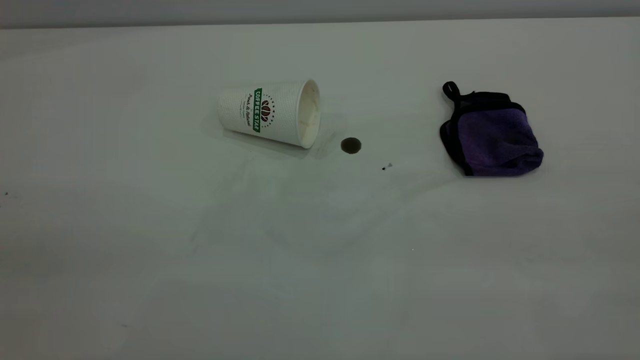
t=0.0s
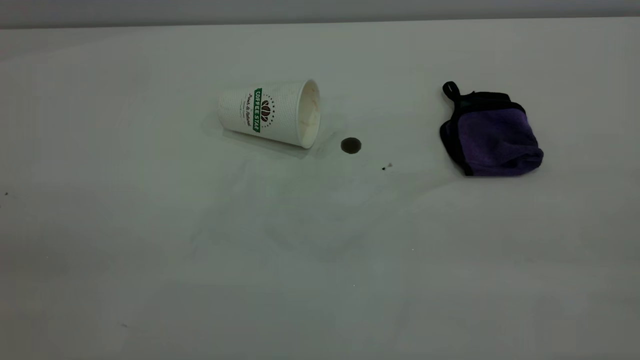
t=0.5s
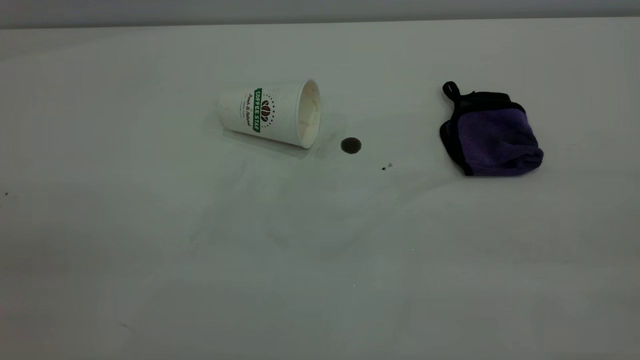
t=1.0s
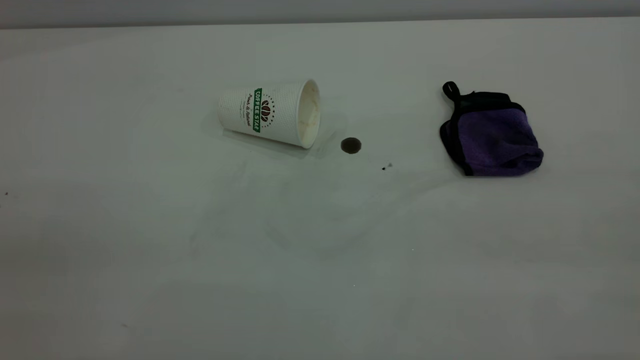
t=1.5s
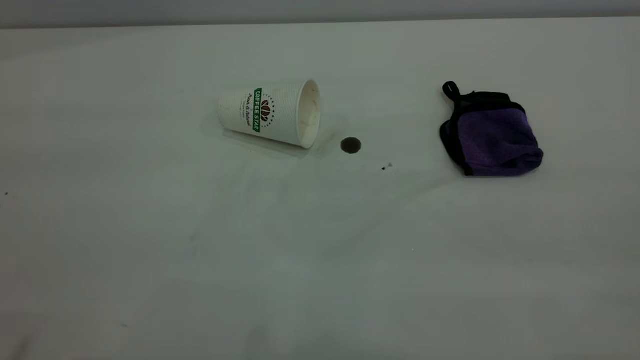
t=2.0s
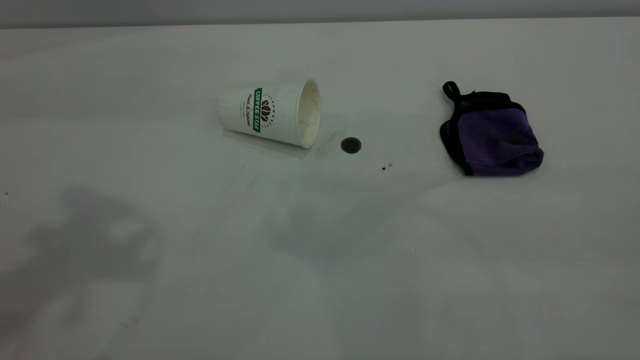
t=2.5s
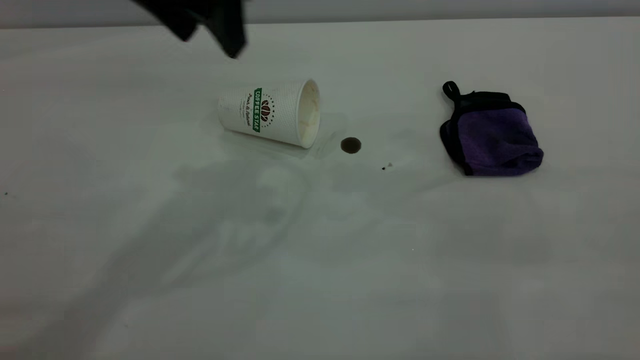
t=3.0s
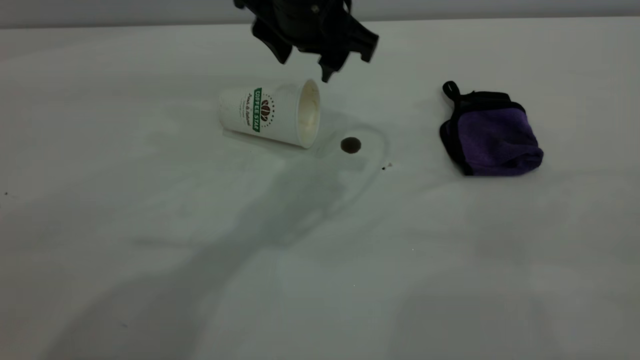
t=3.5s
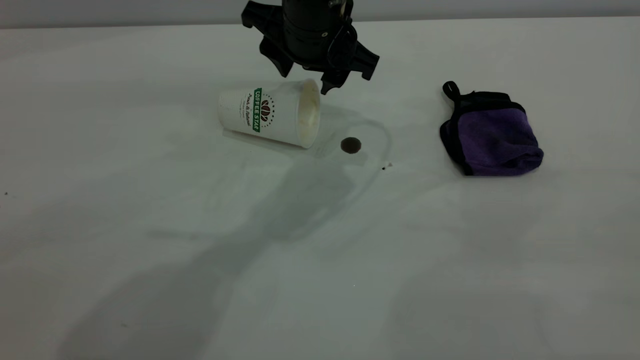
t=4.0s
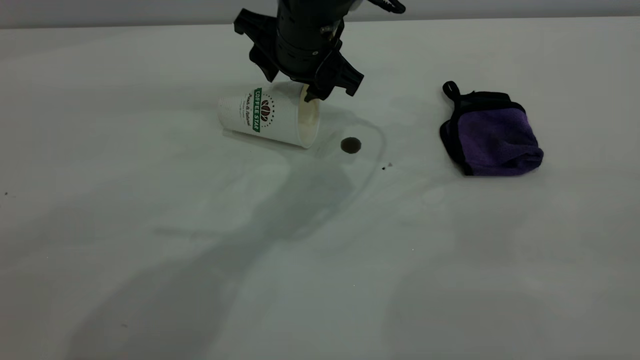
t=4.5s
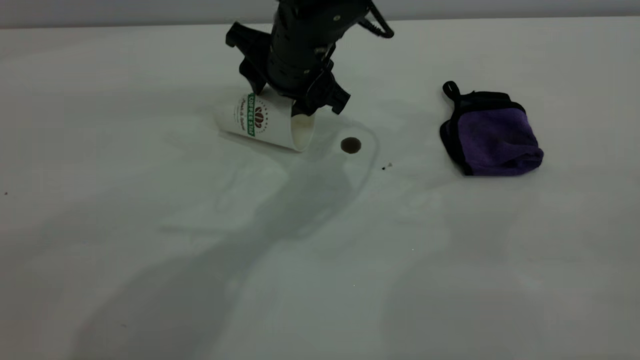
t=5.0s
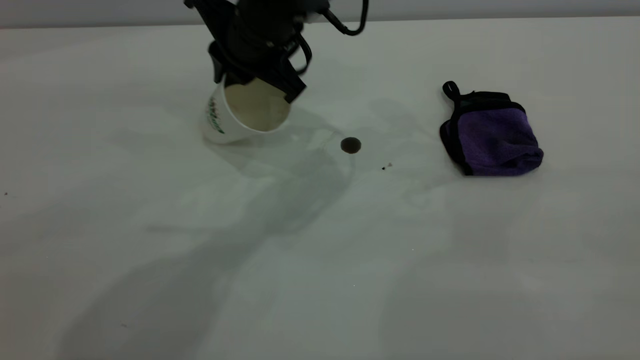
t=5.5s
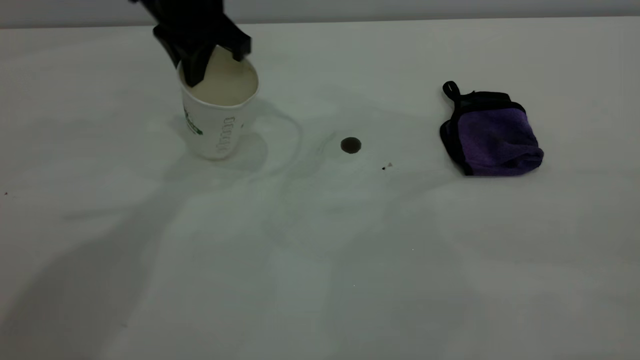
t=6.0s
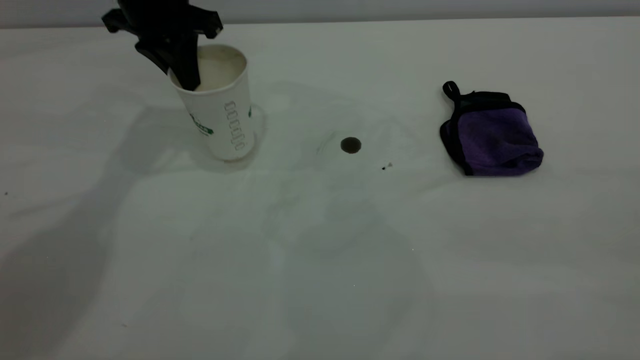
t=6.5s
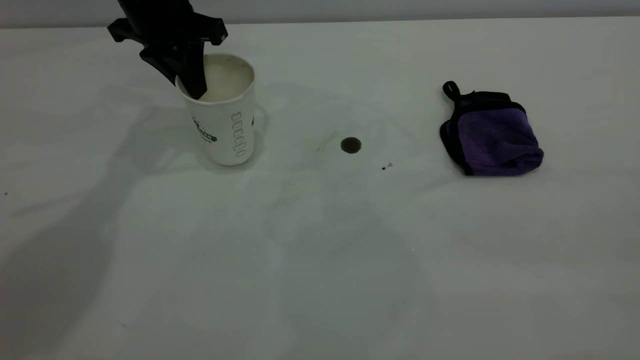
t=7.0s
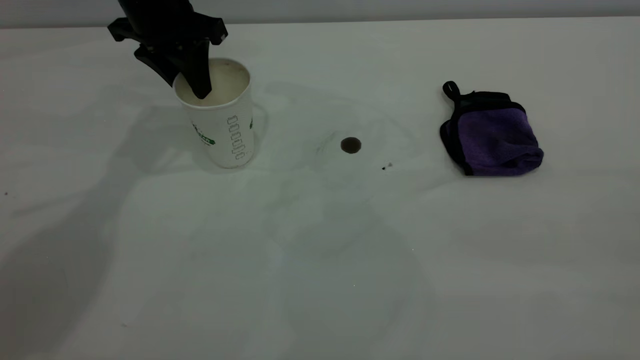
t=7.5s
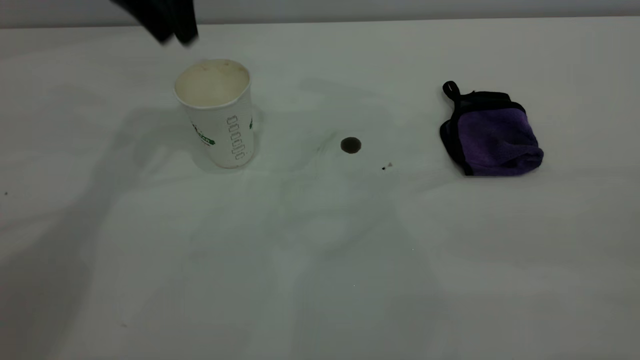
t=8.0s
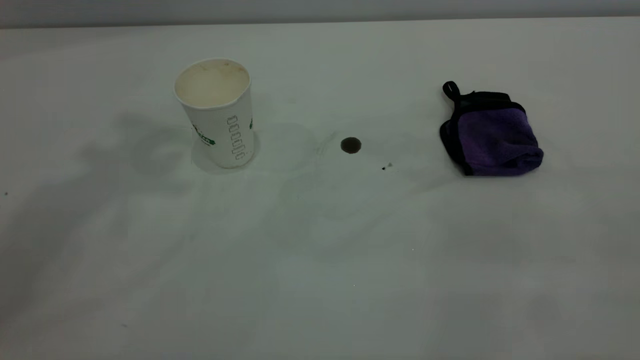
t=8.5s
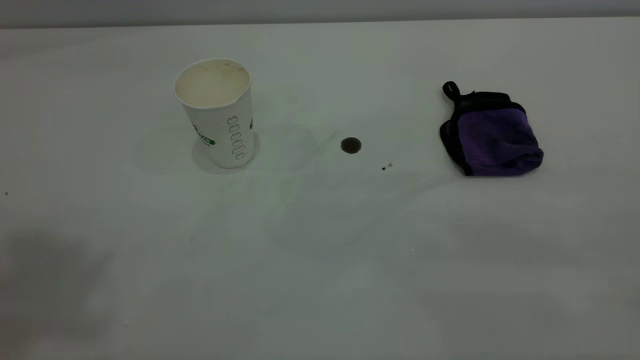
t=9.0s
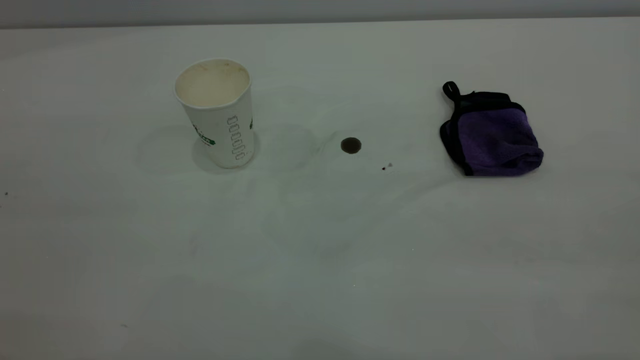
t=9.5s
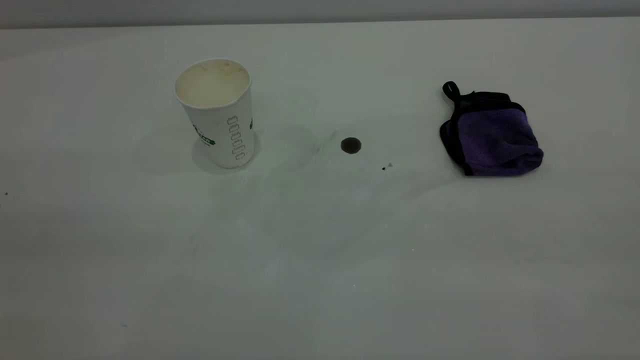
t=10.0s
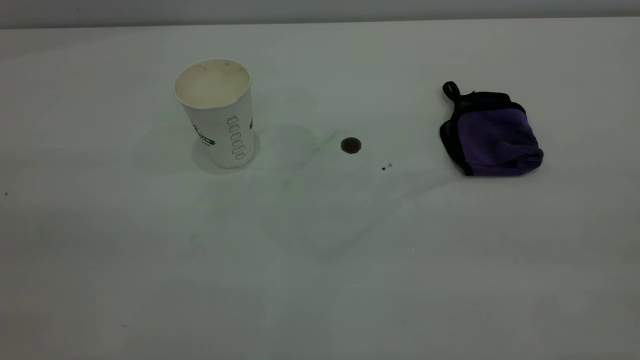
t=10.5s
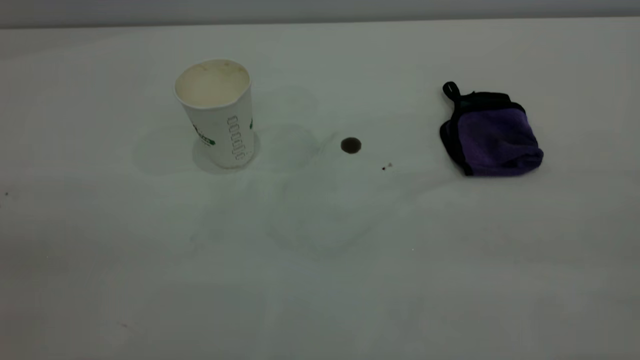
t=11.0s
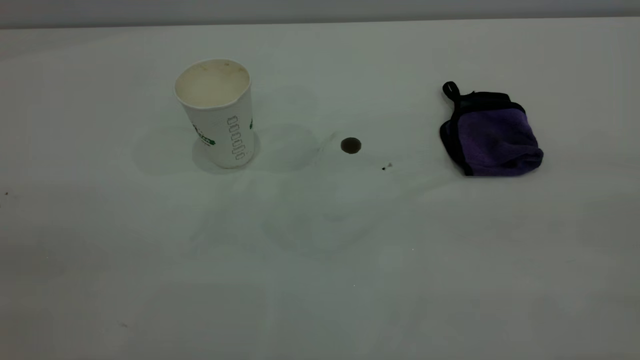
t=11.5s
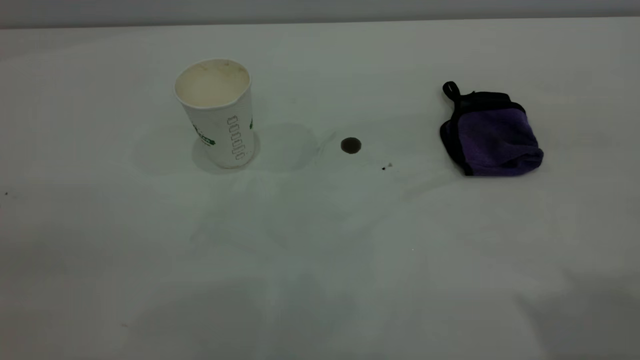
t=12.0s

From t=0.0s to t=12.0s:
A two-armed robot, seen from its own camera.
Task of the whole recording: the left gripper pick up the fallen cup and place it upright, the right gripper grasp the purple rag and wipe the coffee stain on the table, the right gripper put the purple rag back in its original position.
Step, from t=0.0s to t=7.5s: Stand the paper cup upright.
From t=2.0s to t=4.0s: The left gripper moves forward, to the right and downward, some 50 cm.
From t=4.0s to t=6.0s: The left gripper is displaced to the left by about 15 cm, and closes up.
From t=6.0s to t=8.0s: The left gripper shifts some 10 cm upward, and opens its fingers.
From t=8.0s to t=10.0s: The left gripper goes about 40 cm backward.

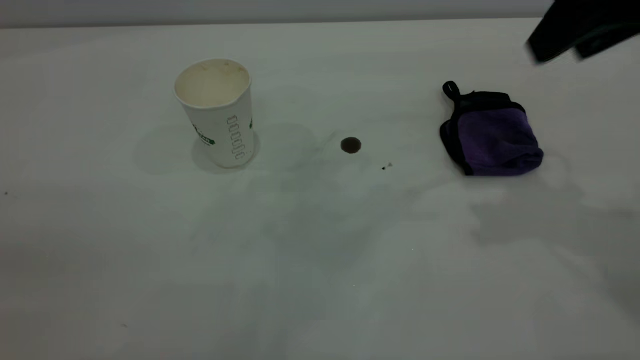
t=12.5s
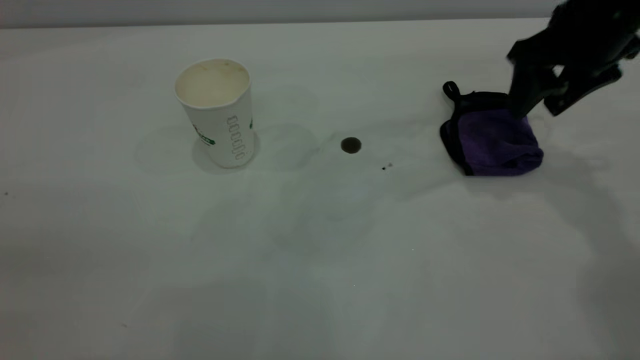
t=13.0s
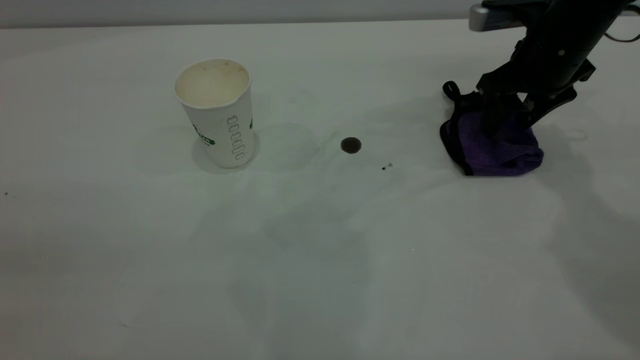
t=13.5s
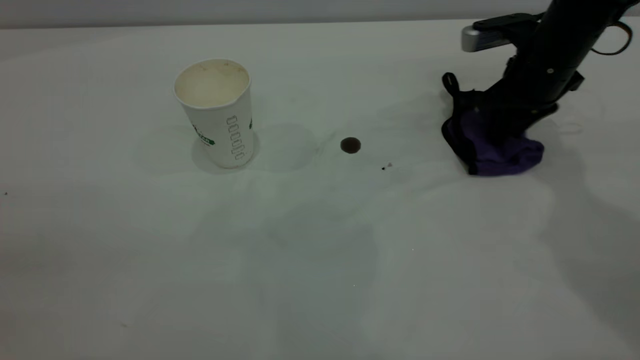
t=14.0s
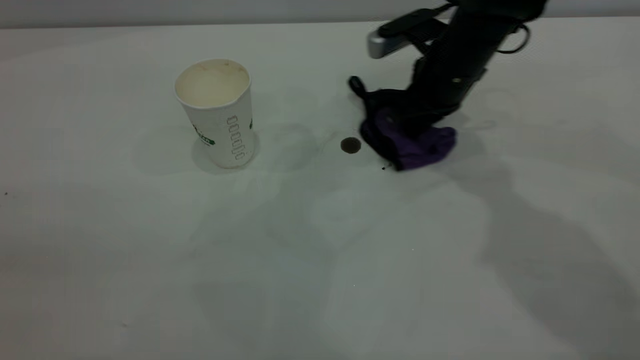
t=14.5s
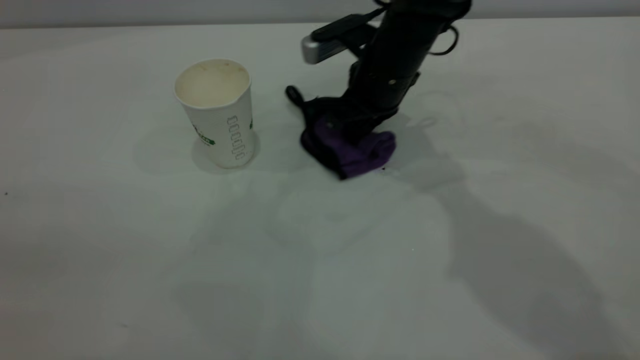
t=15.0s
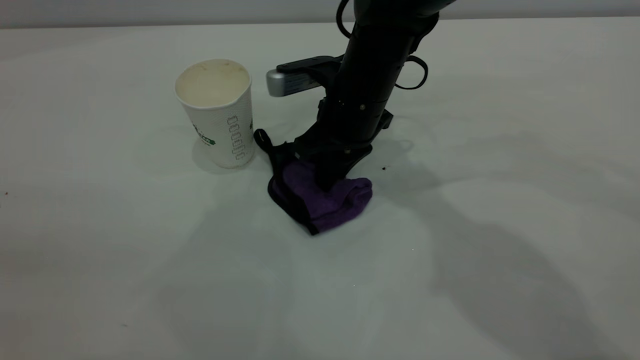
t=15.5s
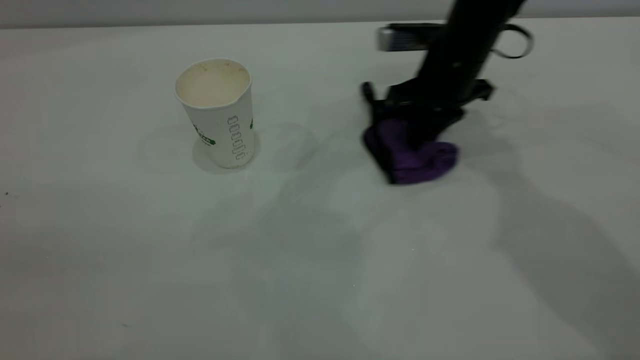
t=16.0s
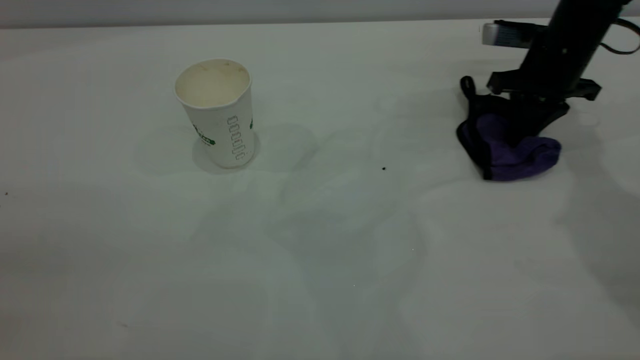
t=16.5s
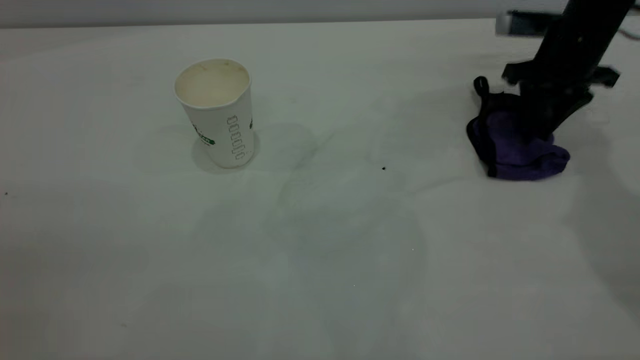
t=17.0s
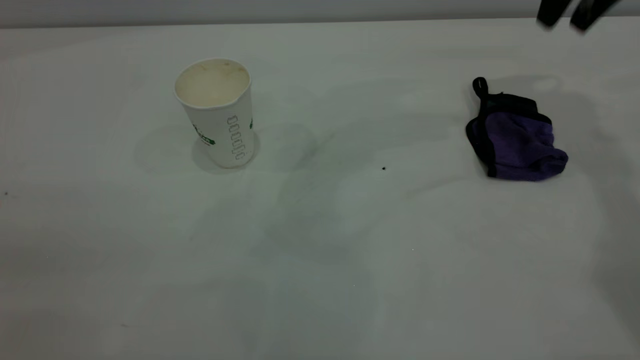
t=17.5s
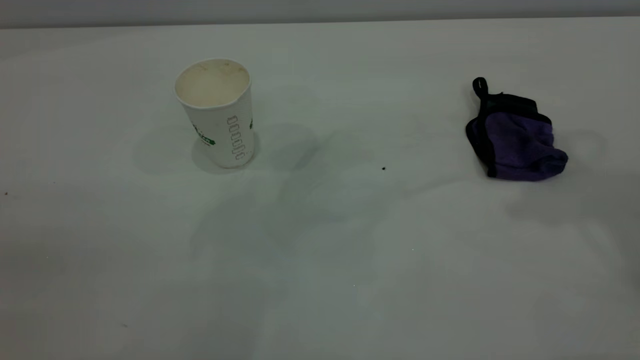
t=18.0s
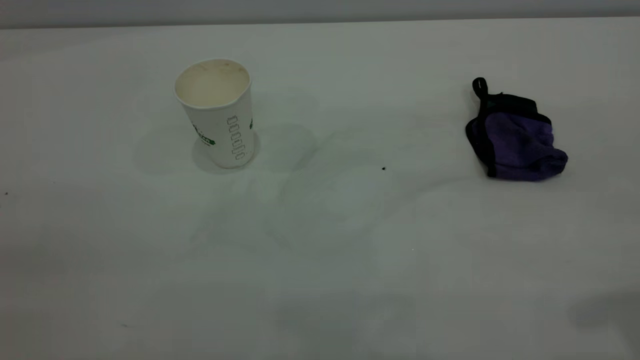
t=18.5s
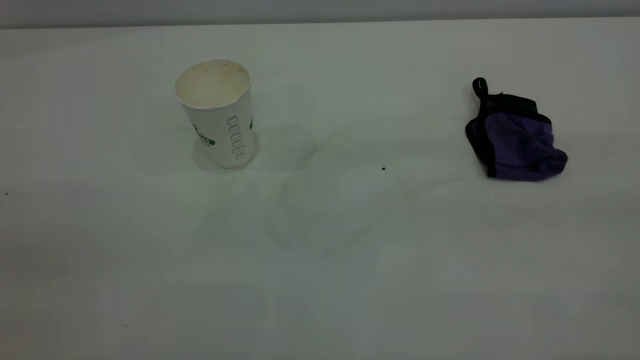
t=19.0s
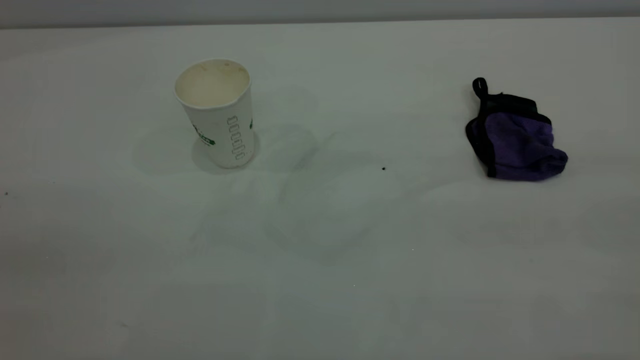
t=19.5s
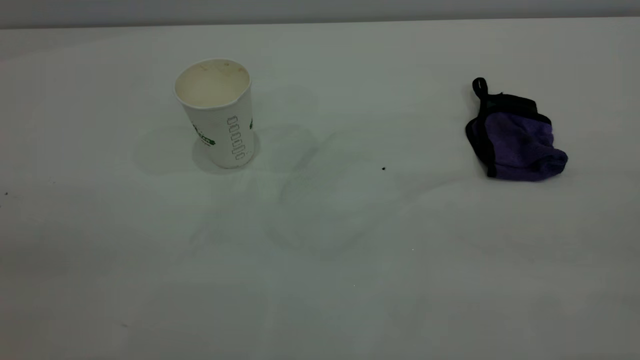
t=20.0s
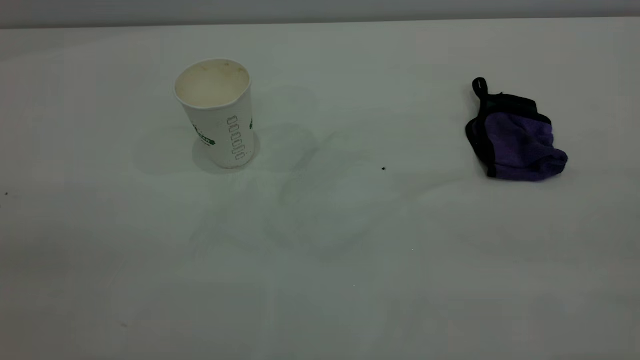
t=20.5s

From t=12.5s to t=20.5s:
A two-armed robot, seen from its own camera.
Task of the whole recording: the left gripper pick up the fallen cup and place it upright, the right gripper grasp the purple rag and wipe the coffee stain on the table, the right gripper put the purple rag back in its original position.
Step, from t=12.5s to t=17.0s: Wipe the stains off the table with a rag.
From t=12.5s to t=14.5s: The right gripper travels downward, forward and to the left by about 25 cm, and closes.
From t=14.5s to t=16.5s: The right gripper shifts about 15 cm to the right.
From t=16.5s to t=18.5s: The right gripper moves backward and upward, some 40 cm, and opens its fingers.
